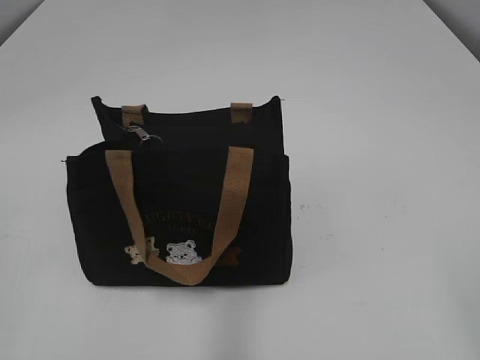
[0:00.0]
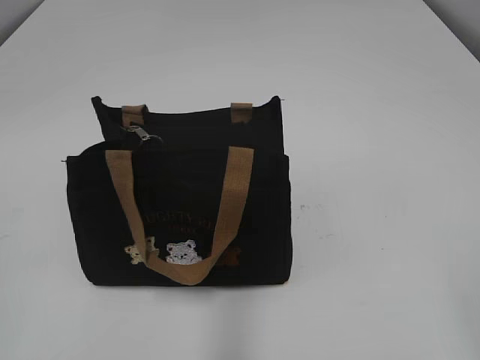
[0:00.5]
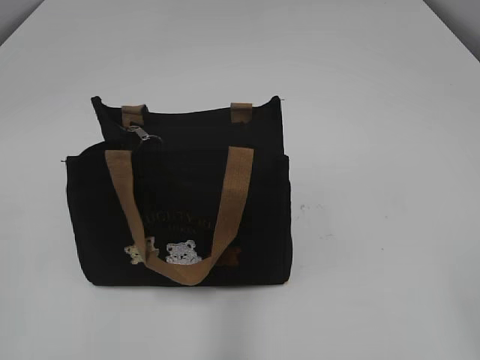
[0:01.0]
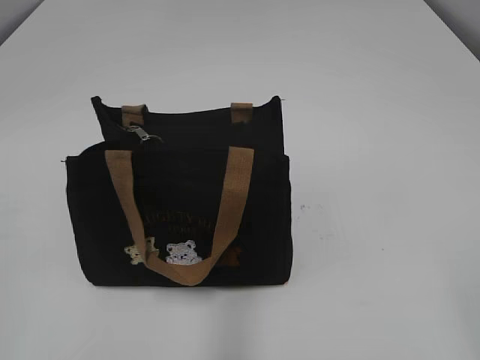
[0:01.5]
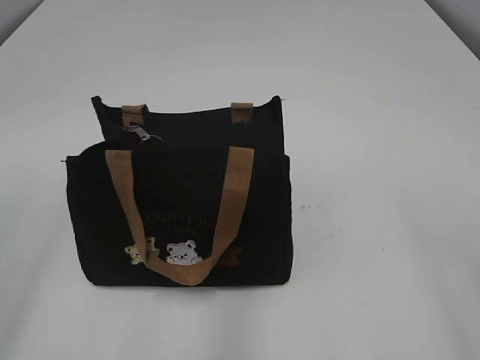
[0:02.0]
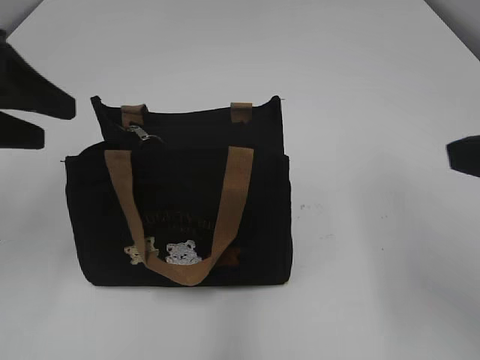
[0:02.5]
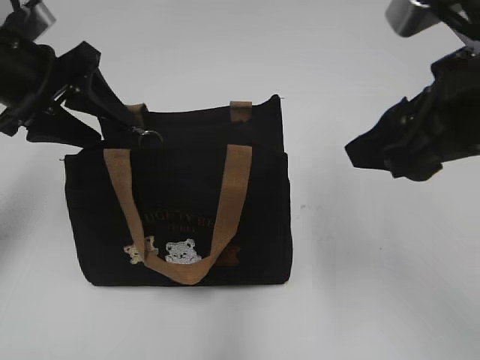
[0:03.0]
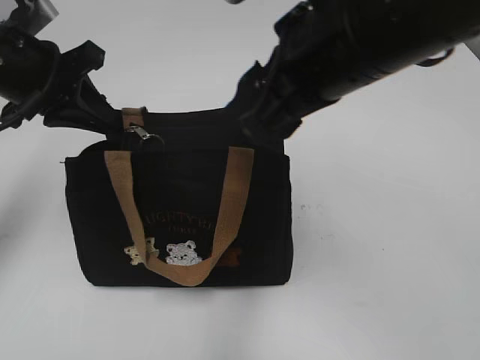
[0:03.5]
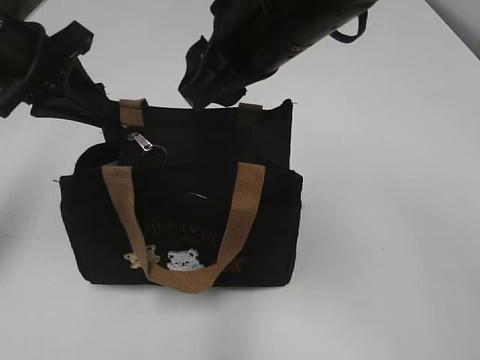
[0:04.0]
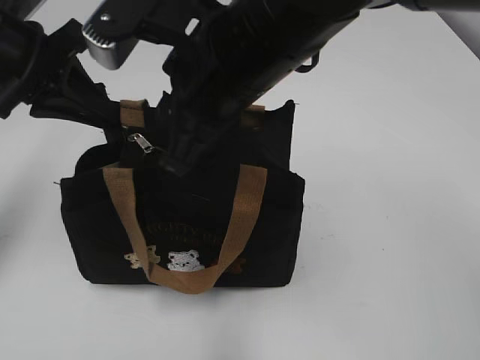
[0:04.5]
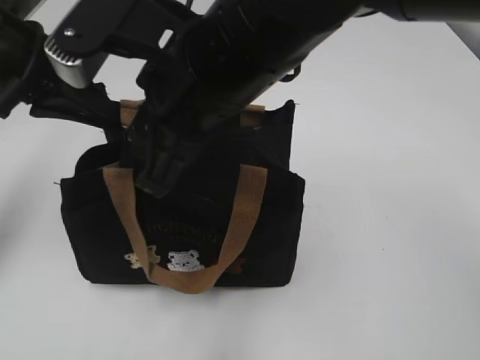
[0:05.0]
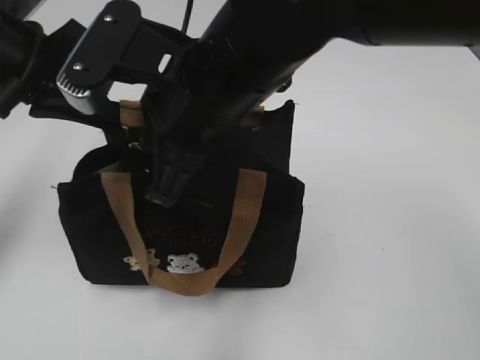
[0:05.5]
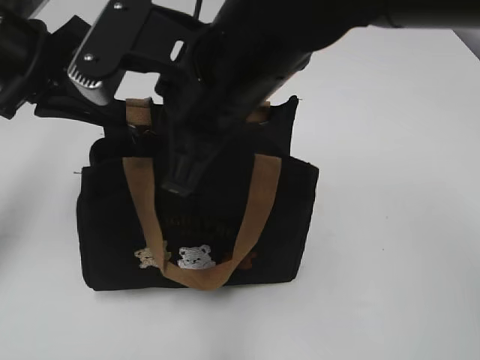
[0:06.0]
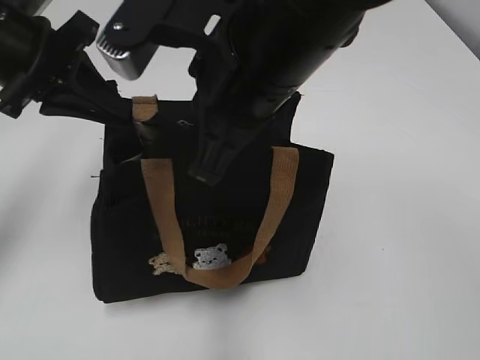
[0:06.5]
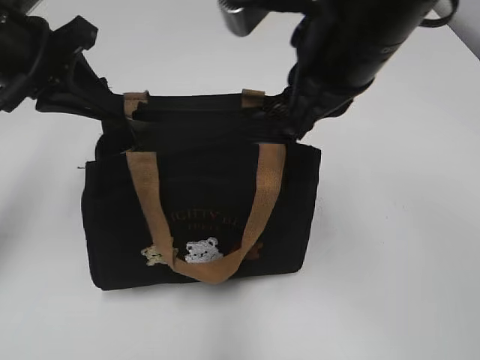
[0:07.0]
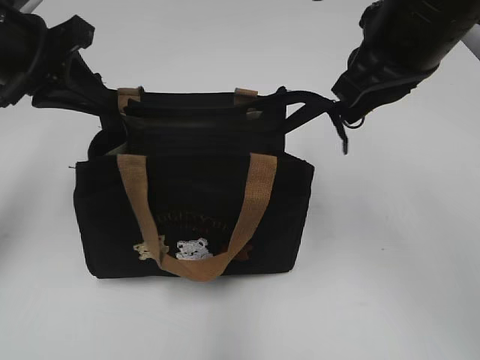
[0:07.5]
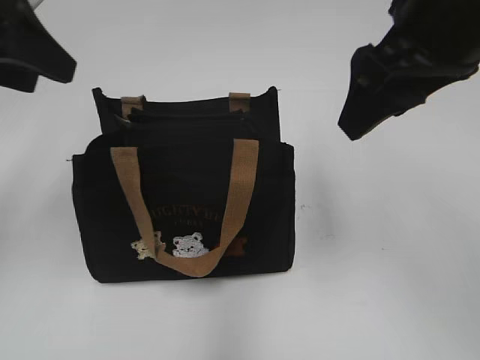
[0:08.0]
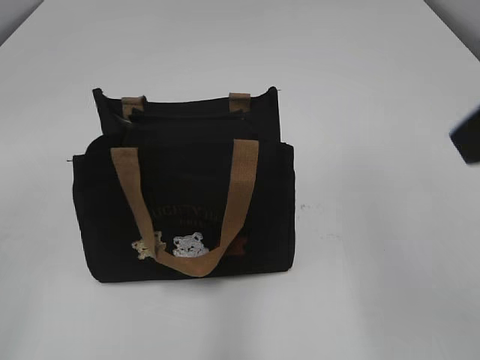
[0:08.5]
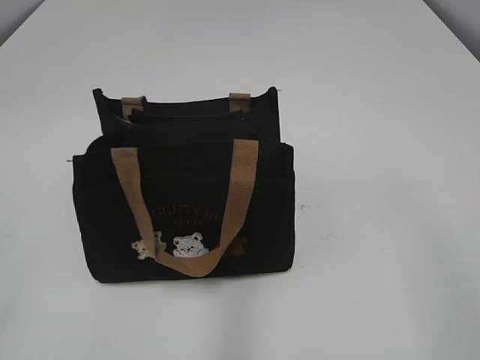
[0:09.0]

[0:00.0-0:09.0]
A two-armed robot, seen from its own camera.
Step, 0:00.0 to 0:07.5: Pull open the zipper with your right hand.
0:02.0 to 0:04.5: The left gripper shifts some 25 cm forward, and closes up. The right gripper shifts about 35 cm to the left and forward, and closes.
0:04.5 to 0:07.0: The right gripper heads to the right, covering about 10 cm, and closes its fingers.
0:07.0 to 0:09.0: The right gripper shifts roughly 30 cm backward and to the right, and opens, while the left gripper goes roughly 30 cm backward, and opens its fingers.

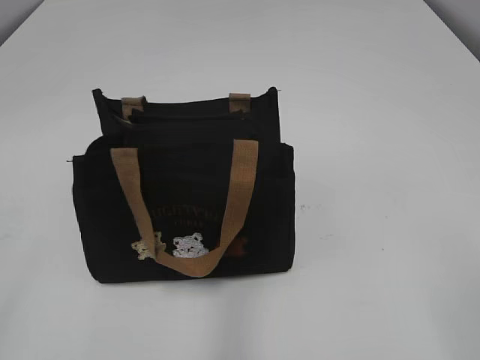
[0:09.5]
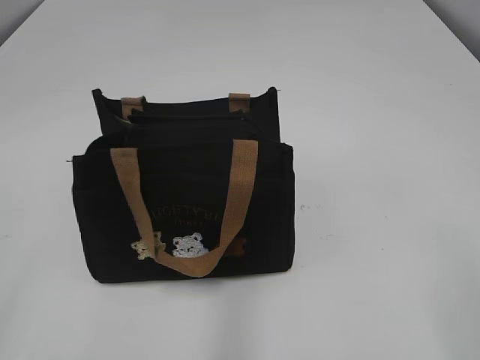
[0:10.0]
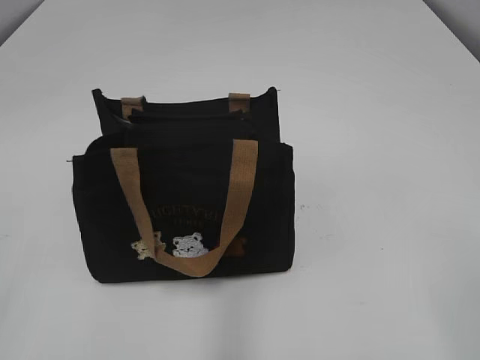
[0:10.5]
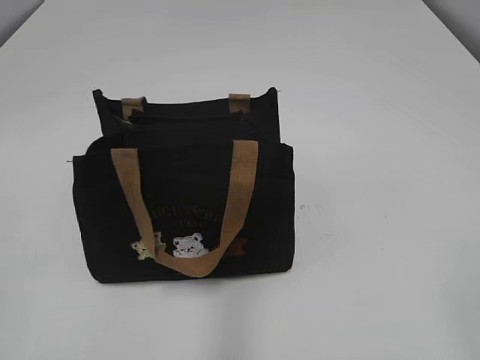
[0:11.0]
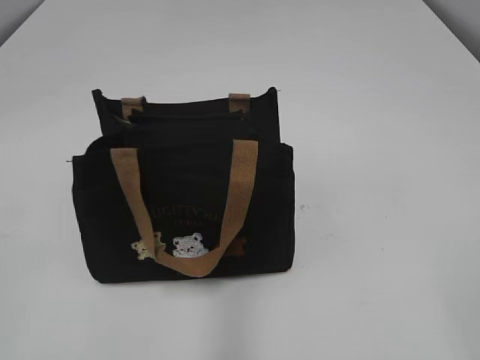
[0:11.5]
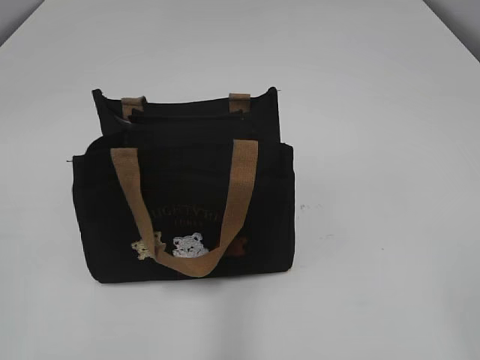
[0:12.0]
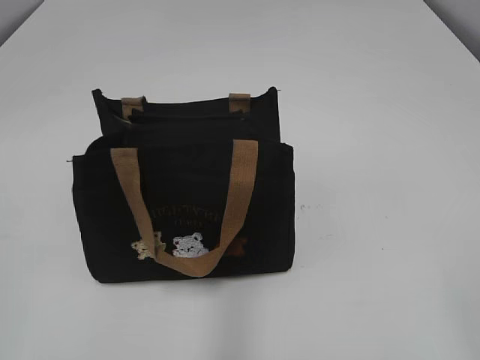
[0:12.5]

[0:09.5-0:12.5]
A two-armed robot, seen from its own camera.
0:11.0 to 0:12.5: The two grippers keep their place.

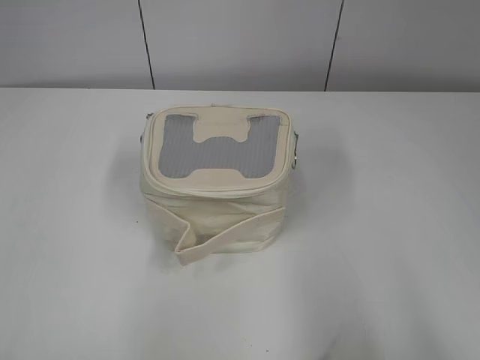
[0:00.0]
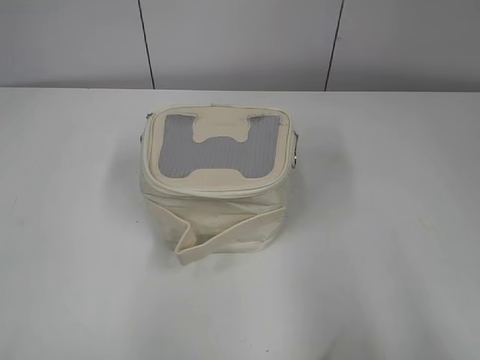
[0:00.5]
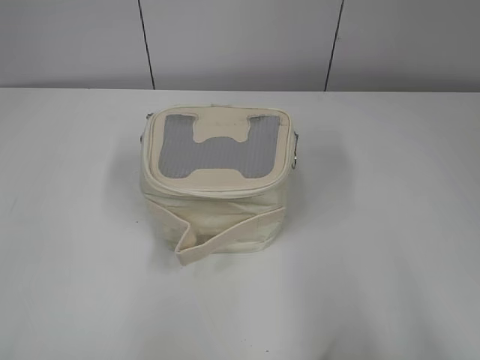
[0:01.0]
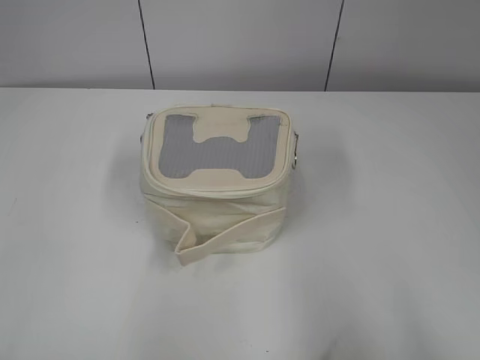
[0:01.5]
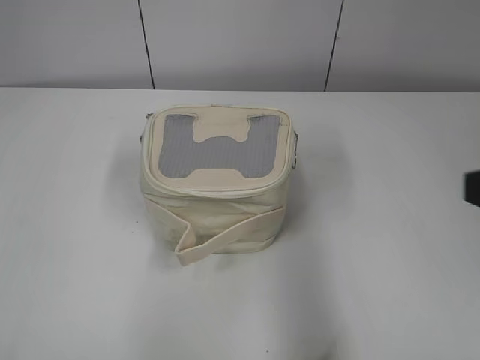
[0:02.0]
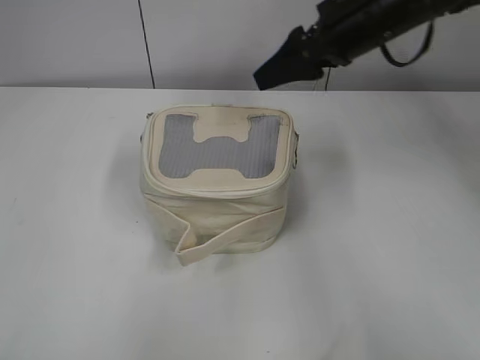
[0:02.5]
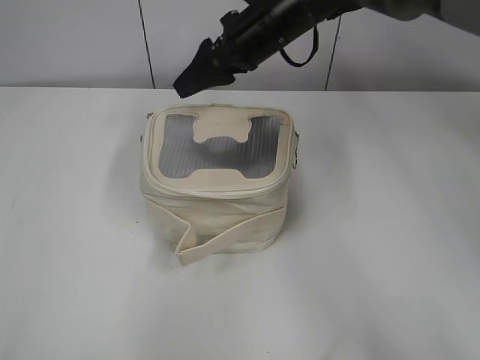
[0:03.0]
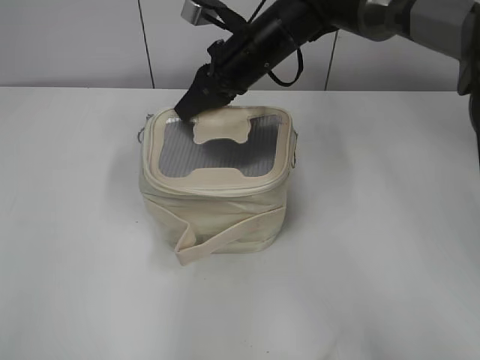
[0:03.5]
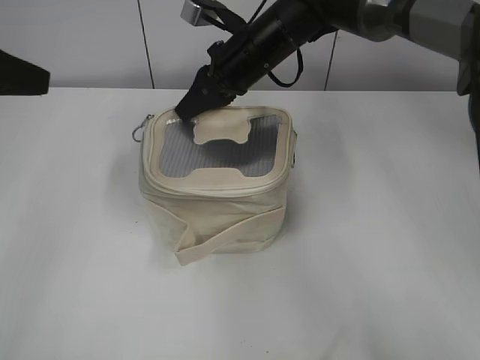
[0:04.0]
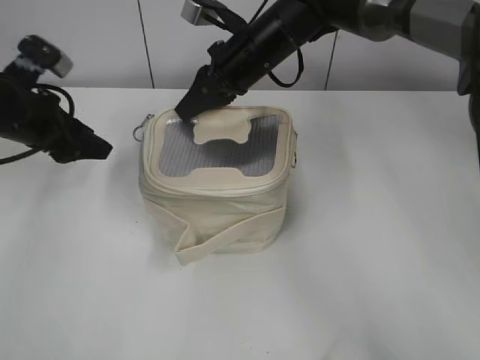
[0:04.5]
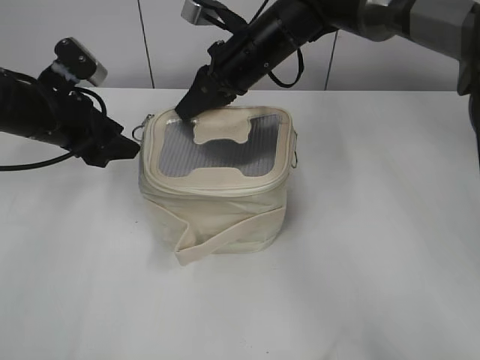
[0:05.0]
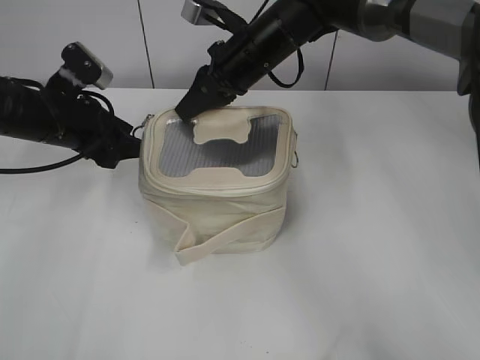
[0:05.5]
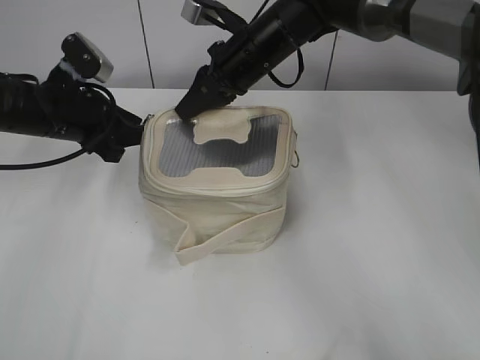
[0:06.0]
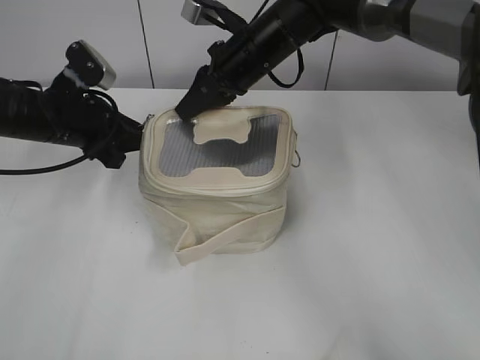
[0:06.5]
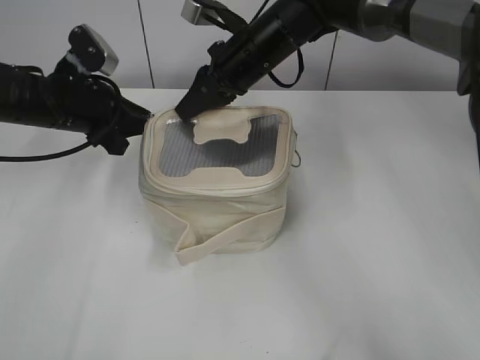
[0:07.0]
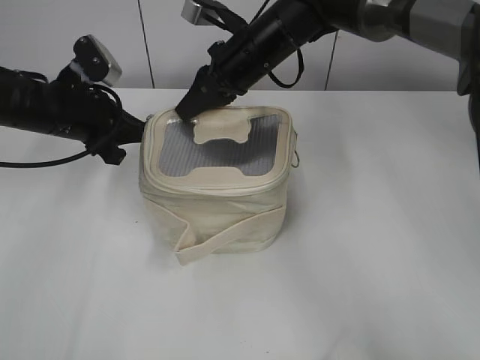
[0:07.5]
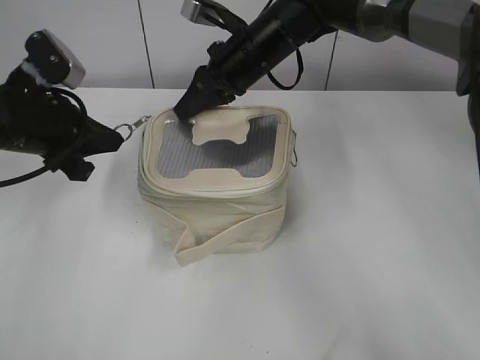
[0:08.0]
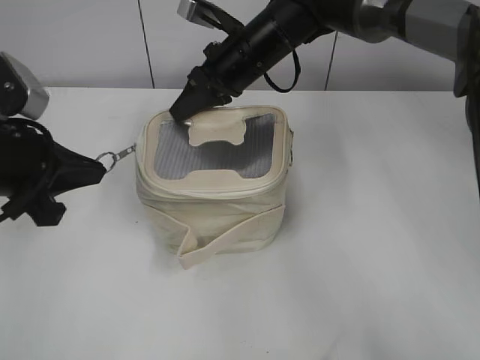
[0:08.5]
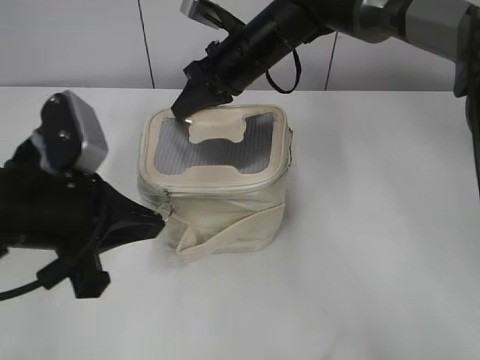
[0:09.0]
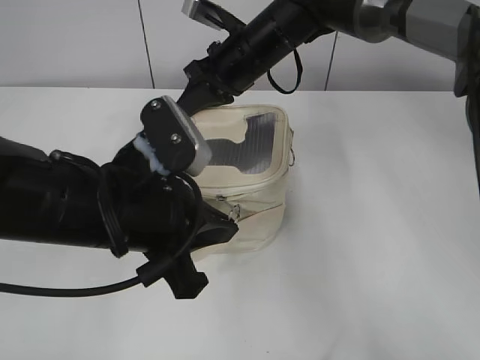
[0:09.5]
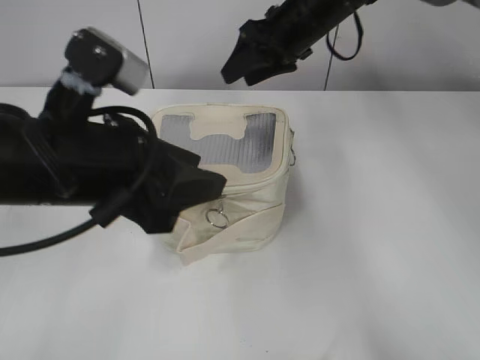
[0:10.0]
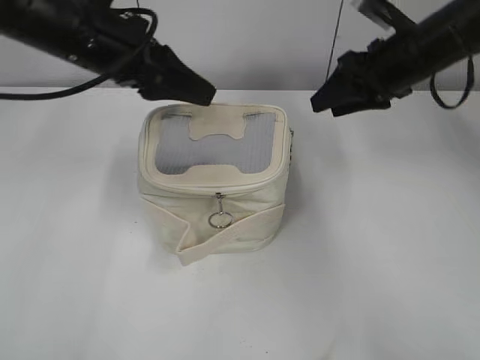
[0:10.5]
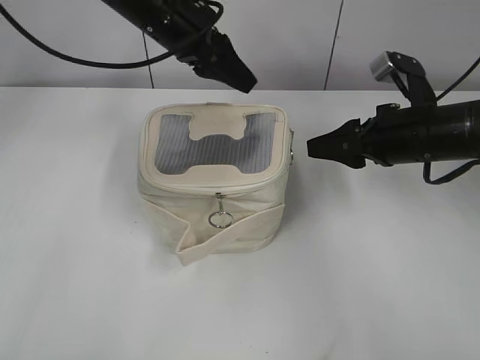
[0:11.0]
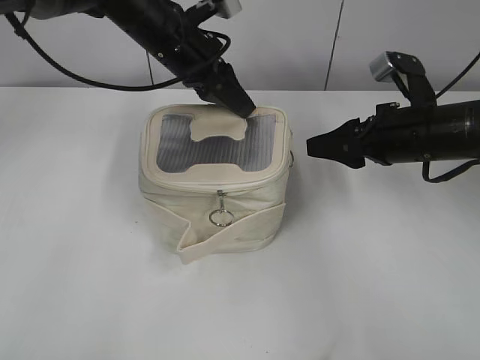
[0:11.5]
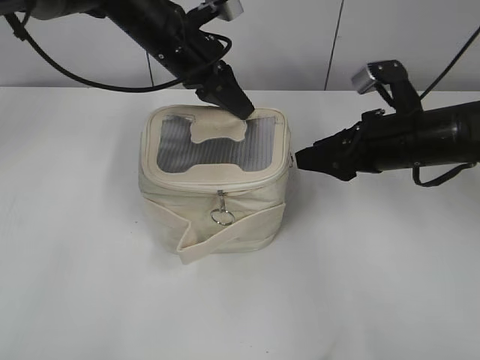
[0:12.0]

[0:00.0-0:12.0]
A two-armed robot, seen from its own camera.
Step, 0:00.0 to 0:09.5: Zip up the bag with your left hand.
0:02.0 to 0:04.0: The right gripper is displaced forward and to the left by approximately 40 cm, and closes its fingers. The left gripper goes some 25 cm forward.
0:04.0 to 0:06.0: The left gripper travels downward and forward by roughly 20 cm.
0:06.0 to 0:08.0: The left gripper heads backward, covering approximately 5 cm, and closes up.
0:08.0 to 0:10.0: The right gripper shifts about 5 cm to the right, and opens. Meanwhile the left gripper moves backward and to the right, about 15 cm, and opens.
0:10.0 to 0:12.0: The left gripper travels forward by some 25 cm, and closes up, while the right gripper heads backward, to the right and downward, covering about 20 cm.

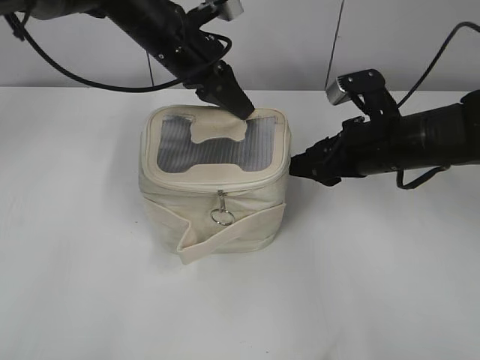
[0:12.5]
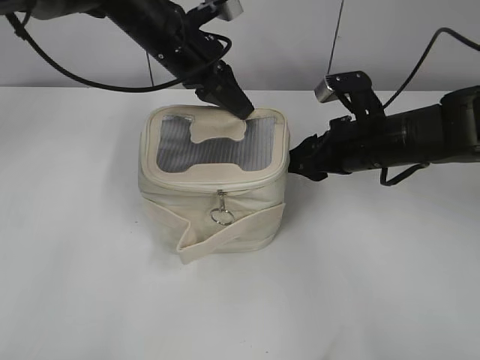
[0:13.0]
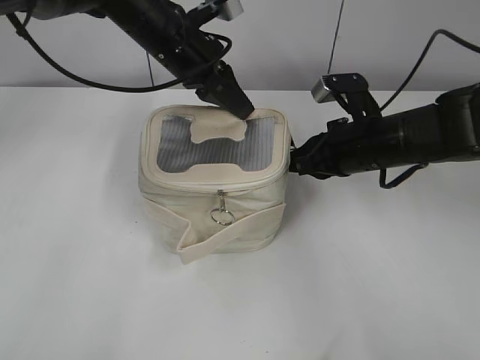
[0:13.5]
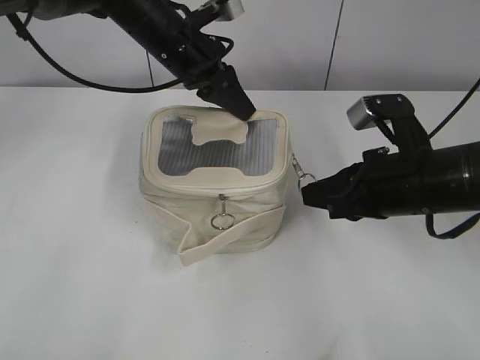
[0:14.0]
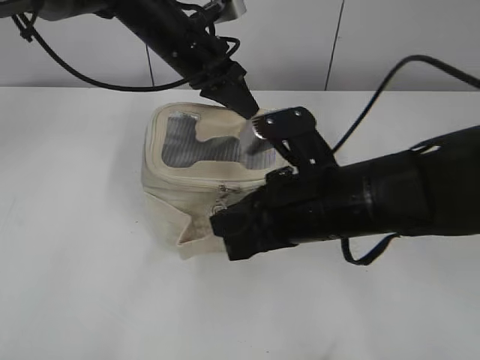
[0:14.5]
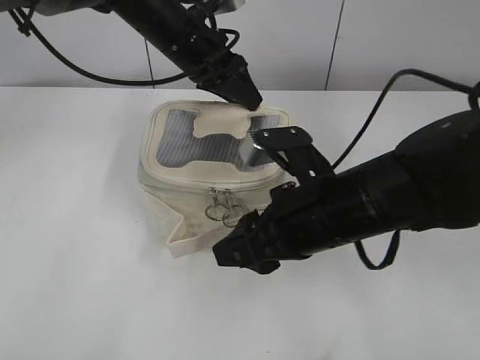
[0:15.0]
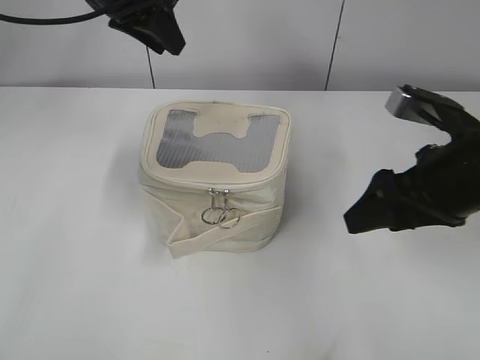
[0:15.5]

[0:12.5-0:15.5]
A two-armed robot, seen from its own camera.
Step, 0:12.5 to 0:14.5: Zip up the bag with your right hand.
0:12.5 to 0:14.0: The right gripper heads backward, covering about 5 cm, and closes its fingers.
0:14.0 to 0:15.5: The right gripper moves roughly 10 cm to the left and comes back, and opens. The left gripper is displaced upward and to the left by approximately 10 cm, and opens up.
